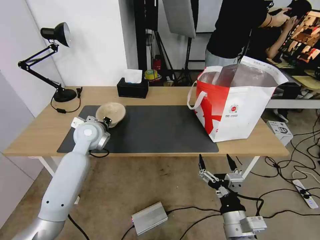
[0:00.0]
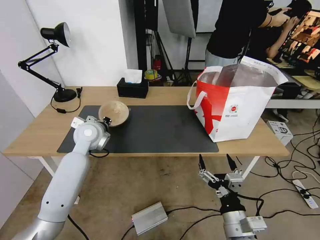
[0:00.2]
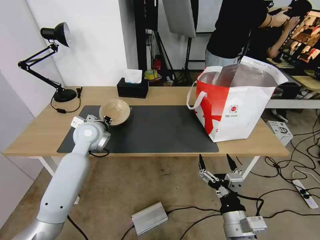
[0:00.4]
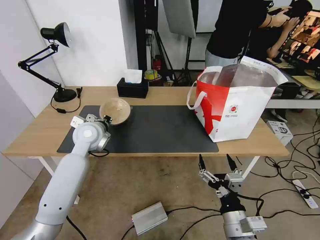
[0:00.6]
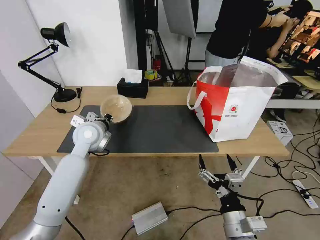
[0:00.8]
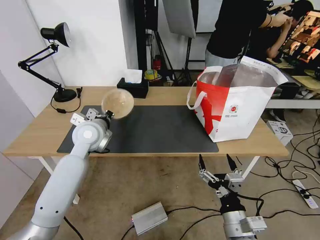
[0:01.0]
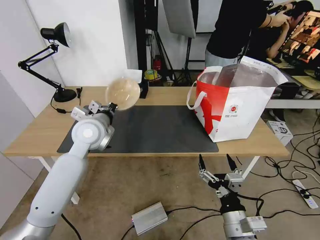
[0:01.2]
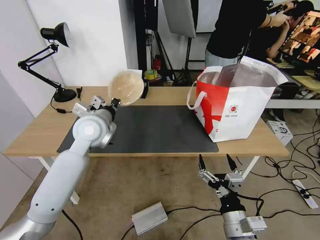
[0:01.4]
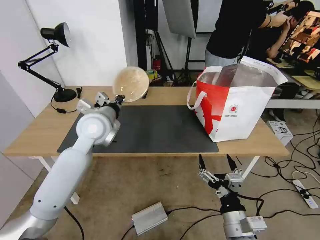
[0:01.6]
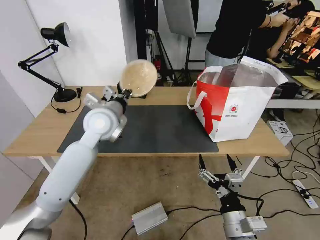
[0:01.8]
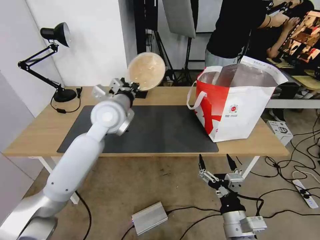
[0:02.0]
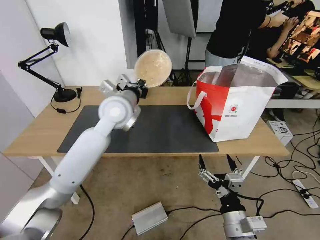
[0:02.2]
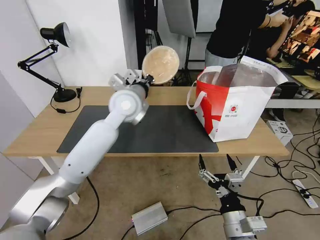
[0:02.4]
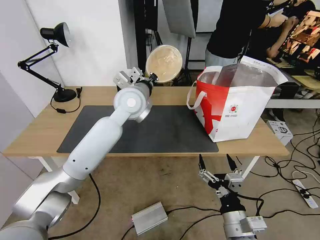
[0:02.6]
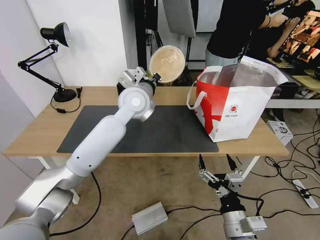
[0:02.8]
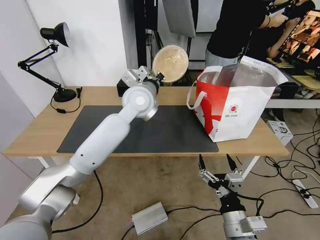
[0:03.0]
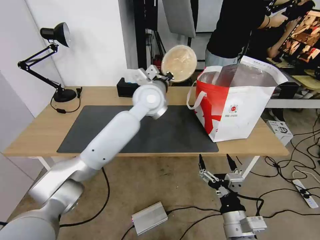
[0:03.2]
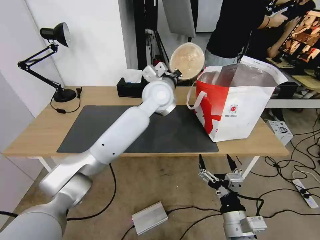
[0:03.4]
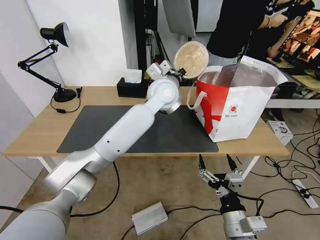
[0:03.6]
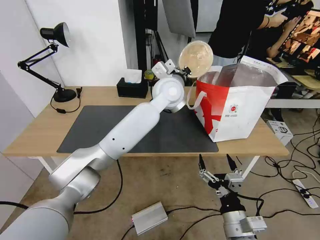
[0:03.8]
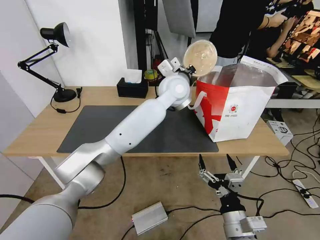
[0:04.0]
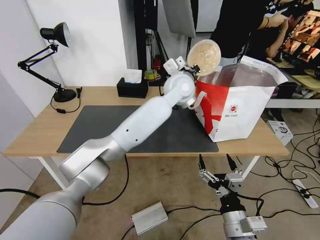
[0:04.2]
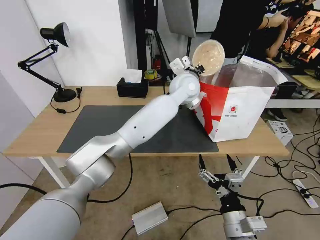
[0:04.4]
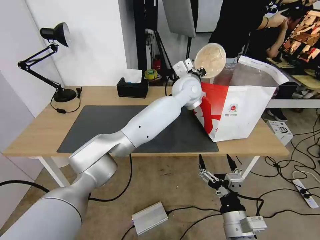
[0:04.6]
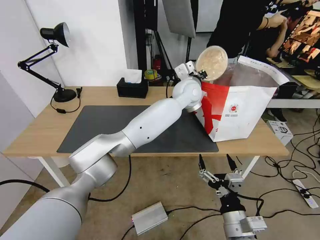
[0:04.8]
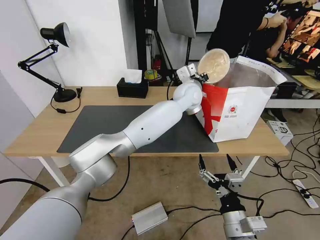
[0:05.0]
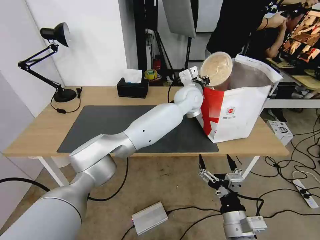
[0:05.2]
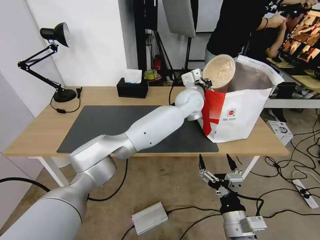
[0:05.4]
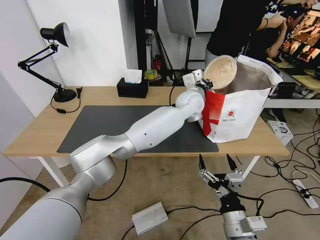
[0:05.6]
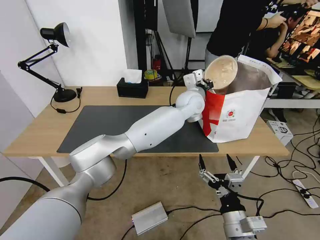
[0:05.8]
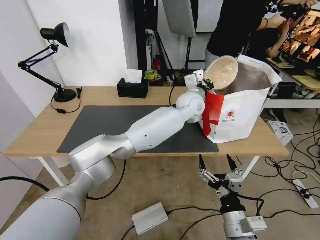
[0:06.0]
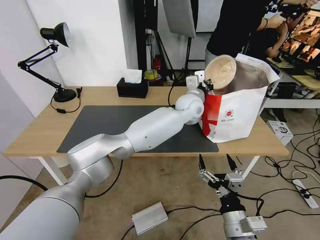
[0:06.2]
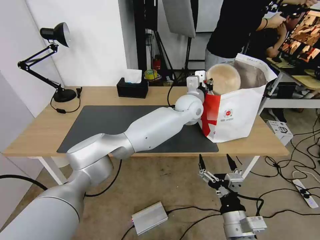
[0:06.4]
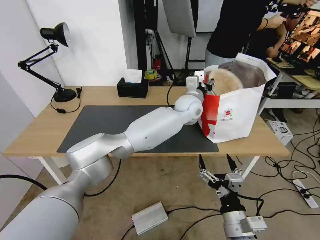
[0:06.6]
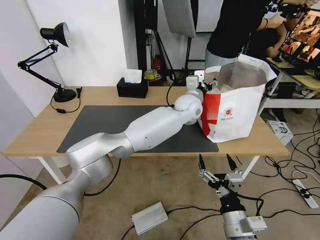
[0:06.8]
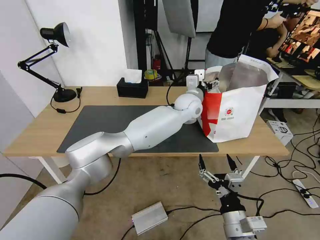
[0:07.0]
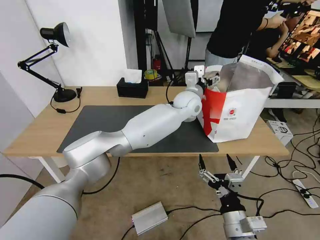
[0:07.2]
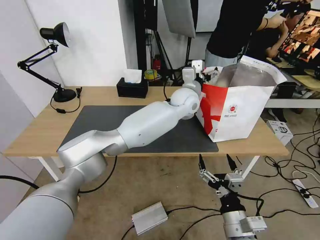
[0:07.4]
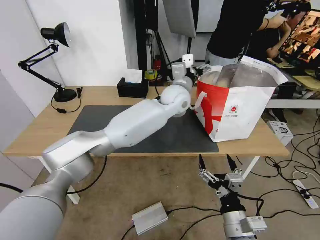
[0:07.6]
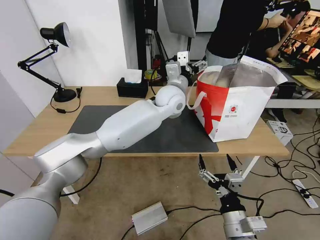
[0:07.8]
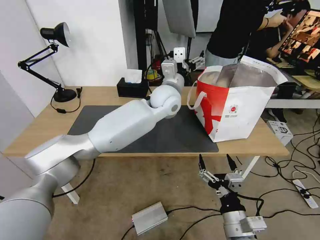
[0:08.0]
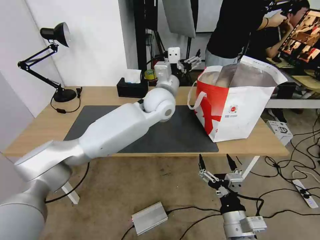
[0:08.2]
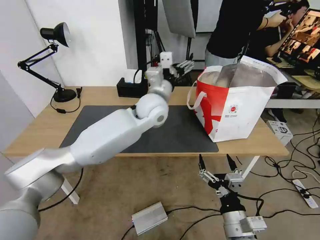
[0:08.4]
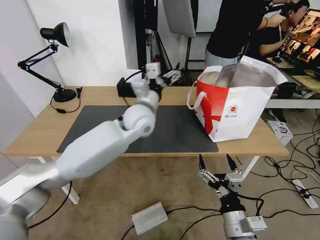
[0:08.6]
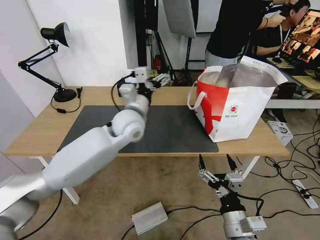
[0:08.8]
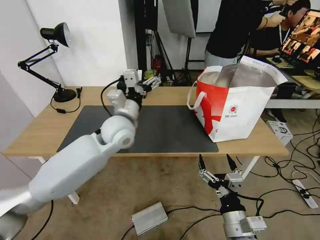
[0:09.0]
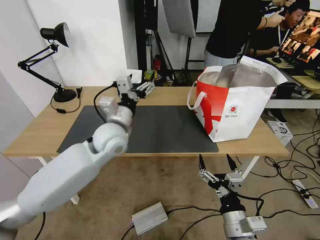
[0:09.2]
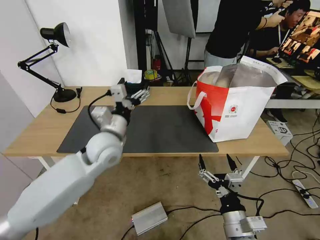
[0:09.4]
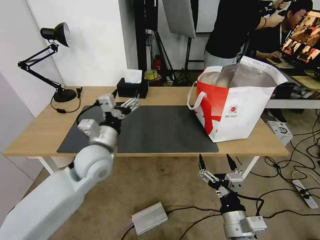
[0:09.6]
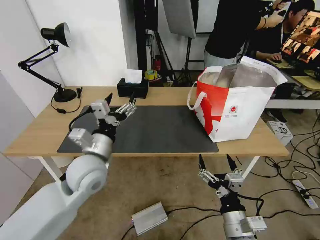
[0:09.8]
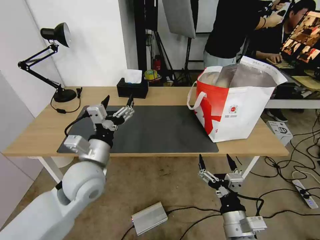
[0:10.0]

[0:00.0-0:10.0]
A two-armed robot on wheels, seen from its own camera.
Task of the whole recording: Pick up the trash from the table and place it into the takeout bag.
0.0 to 1.4 s: The left gripper goes about 5 cm upward.
1.4 to 2.8 s: The left gripper heads to the right, forward and upward, covering about 15 cm.
2.8 to 4.2 s: The left gripper travels to the right by about 15 cm.
4.2 to 5.8 s: The left gripper heads downward, covering roughly 5 cm.
5.8 to 7.2 s: The left gripper opens up.
7.2 to 8.6 s: The left gripper is displaced to the left and backward by about 20 cm.
8.6 to 10.0 s: The left gripper travels backward and to the left by approximately 20 cm.

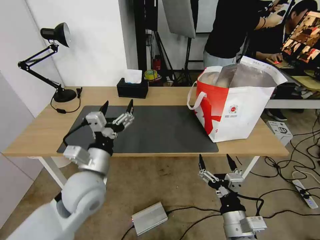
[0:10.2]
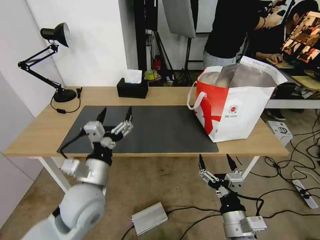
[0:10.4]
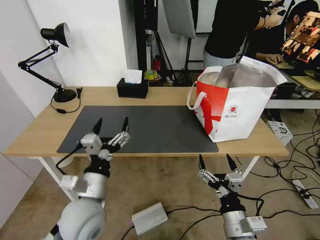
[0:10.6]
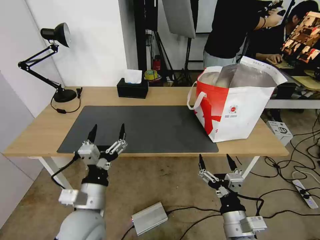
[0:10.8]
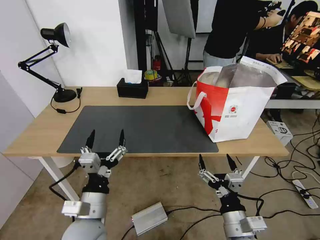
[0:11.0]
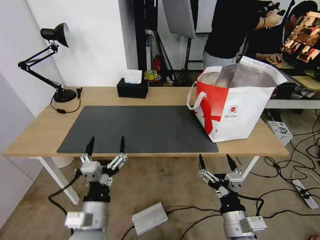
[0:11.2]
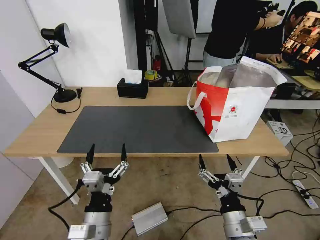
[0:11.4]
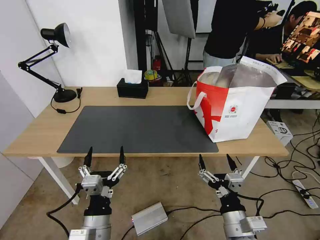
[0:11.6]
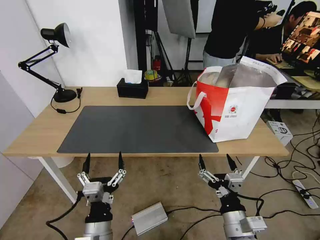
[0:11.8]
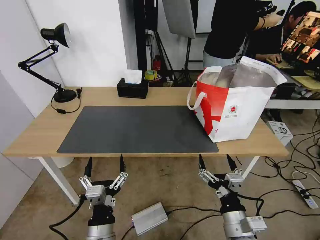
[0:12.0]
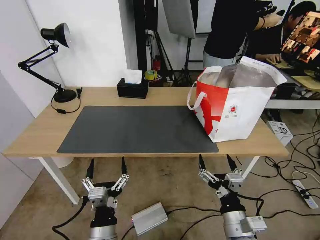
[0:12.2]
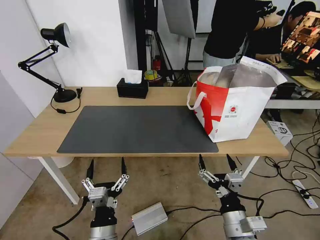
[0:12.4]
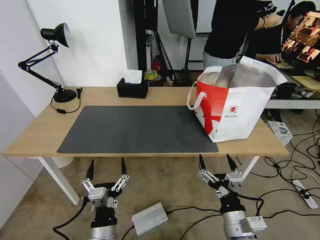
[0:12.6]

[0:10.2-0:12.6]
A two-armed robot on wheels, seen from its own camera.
Task of the whole recording: Pick up the trash from the table and place it into the takeout bag.
10.2 to 11.4 s: The left gripper moves backward and downward, some 15 cm.
11.4 to 12.6 s: The left gripper moves roughly 5 cm.

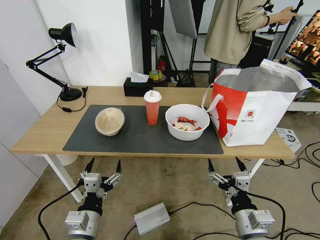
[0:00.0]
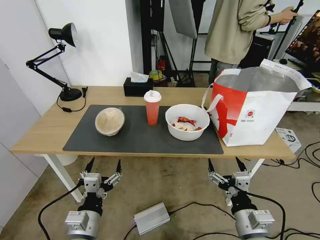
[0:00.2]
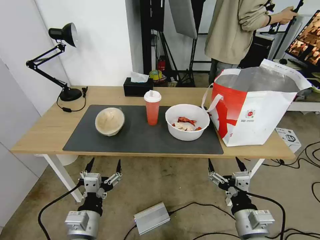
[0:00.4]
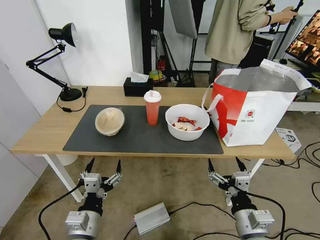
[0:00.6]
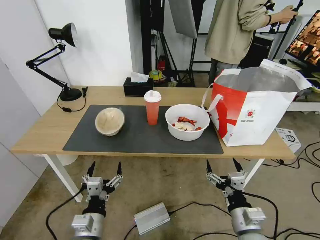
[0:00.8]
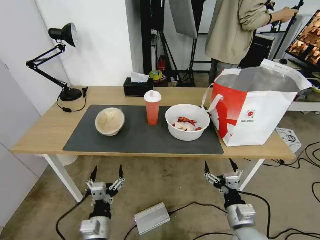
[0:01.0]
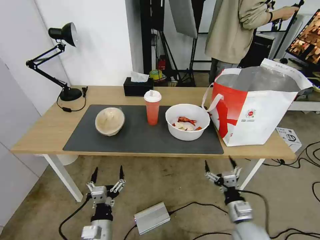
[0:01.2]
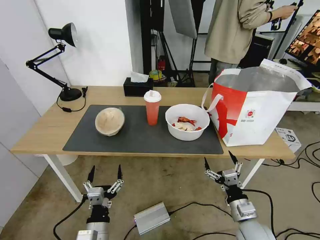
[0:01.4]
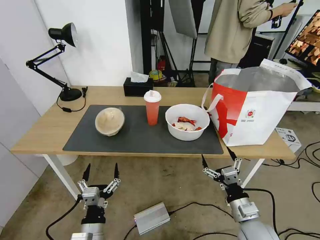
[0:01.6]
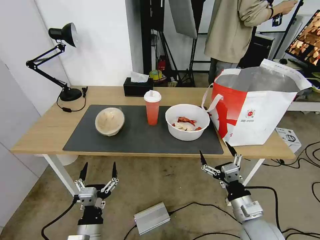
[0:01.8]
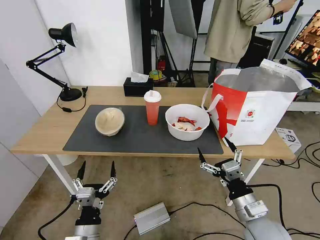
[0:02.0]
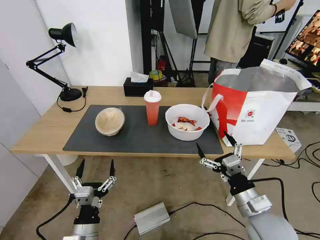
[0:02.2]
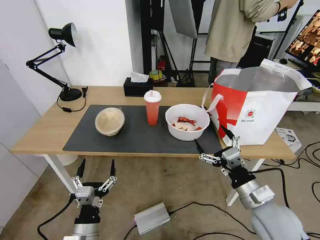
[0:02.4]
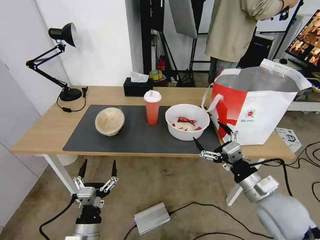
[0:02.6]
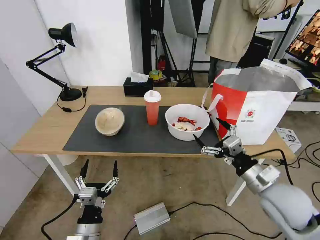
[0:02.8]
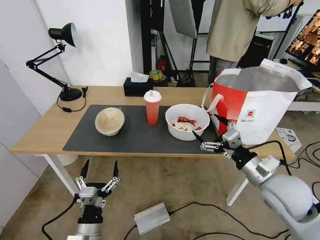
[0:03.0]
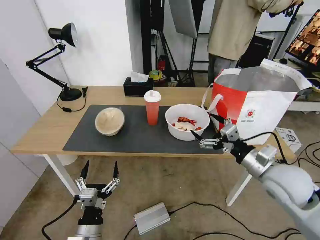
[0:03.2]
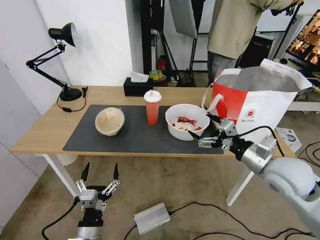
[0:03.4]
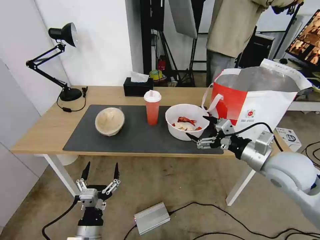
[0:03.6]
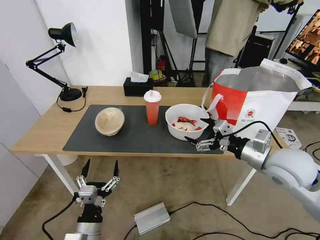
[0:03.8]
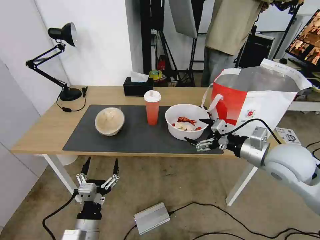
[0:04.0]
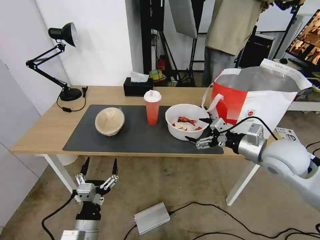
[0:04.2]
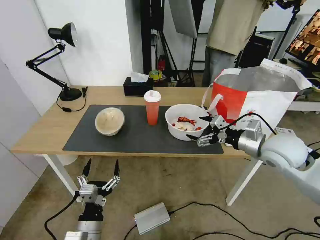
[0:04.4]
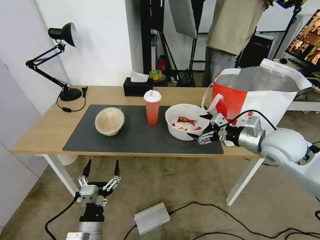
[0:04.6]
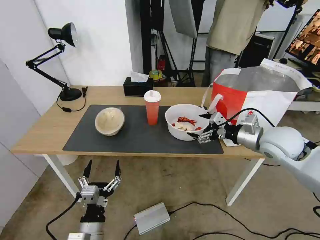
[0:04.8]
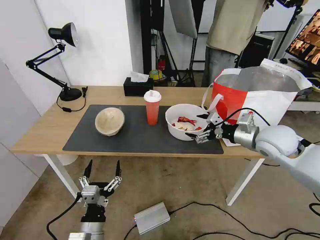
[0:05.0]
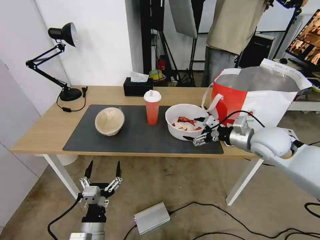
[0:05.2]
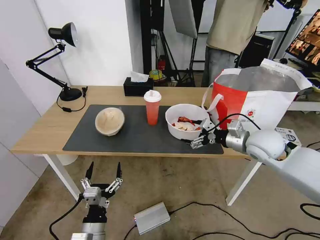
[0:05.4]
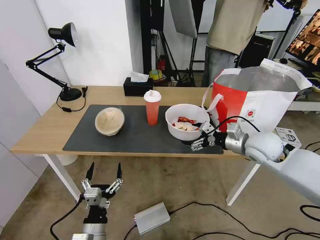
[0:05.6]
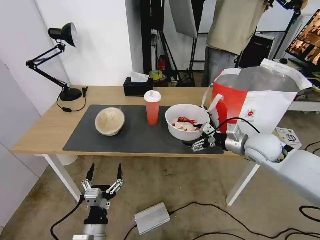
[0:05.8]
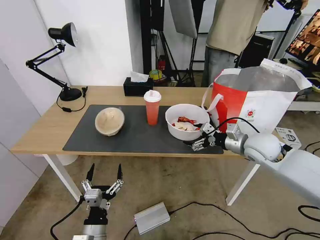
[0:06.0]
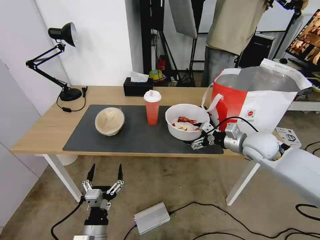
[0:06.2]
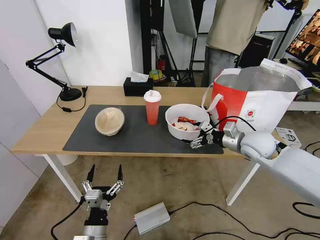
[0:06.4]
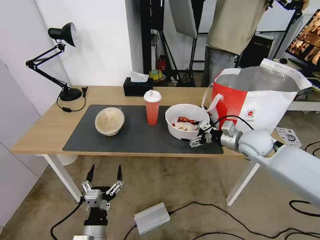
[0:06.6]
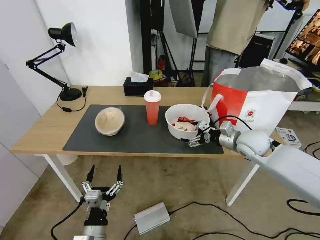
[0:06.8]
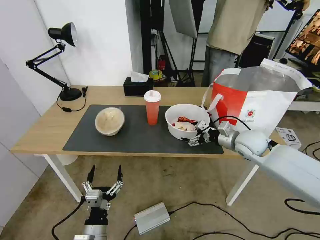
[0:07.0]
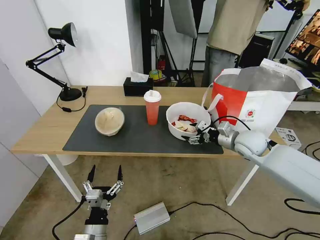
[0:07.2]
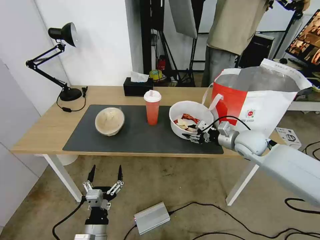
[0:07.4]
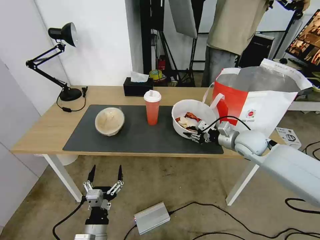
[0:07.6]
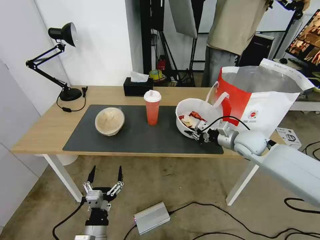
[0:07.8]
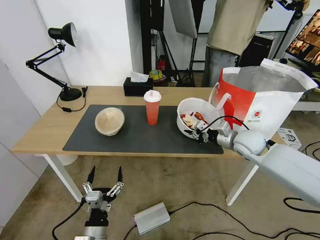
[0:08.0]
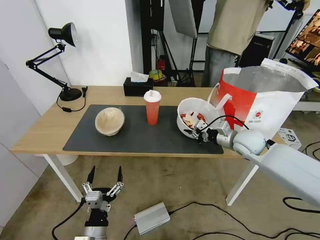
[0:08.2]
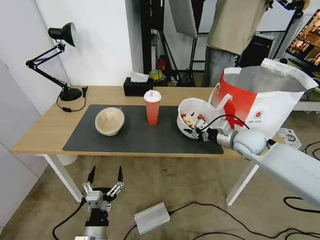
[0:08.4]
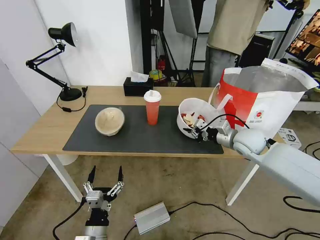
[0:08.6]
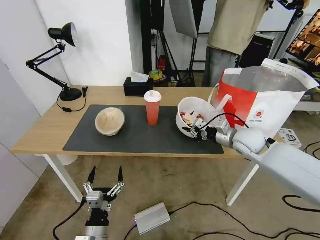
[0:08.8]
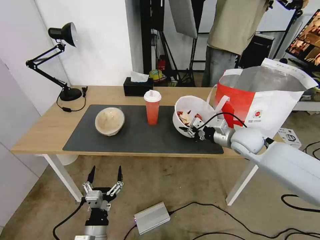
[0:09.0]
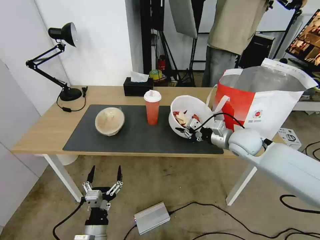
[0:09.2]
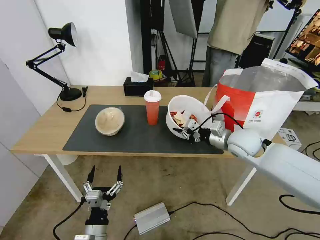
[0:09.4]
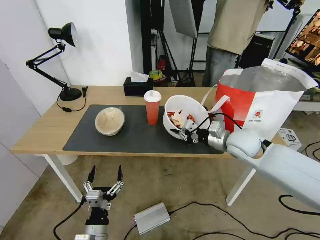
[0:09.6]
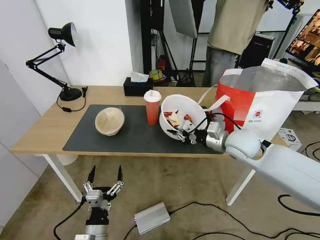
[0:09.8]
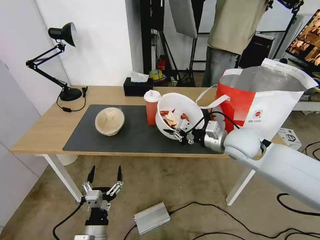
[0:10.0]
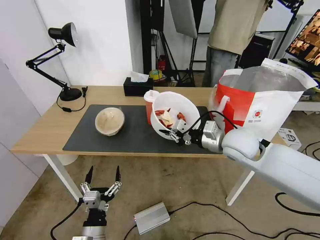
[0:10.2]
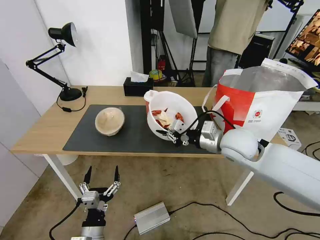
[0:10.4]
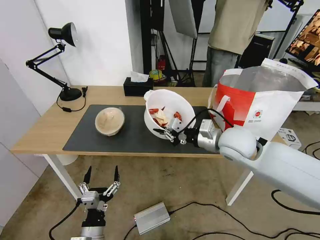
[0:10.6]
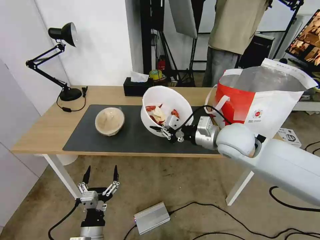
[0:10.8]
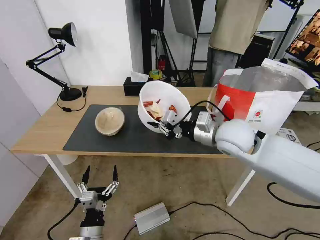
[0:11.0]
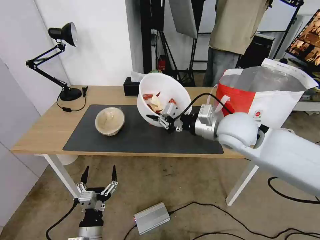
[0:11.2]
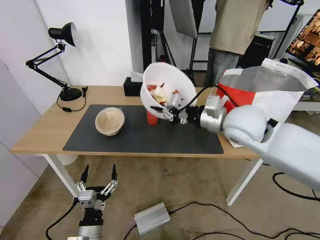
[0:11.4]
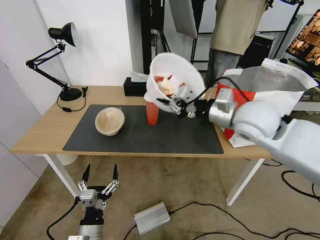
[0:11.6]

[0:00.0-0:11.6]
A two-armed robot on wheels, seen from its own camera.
Task of the whole recording: Pick up the trash from the table and place it into the takeout bag.
1.4 to 2.8 s: The right gripper moves upward, some 15 cm.
2.8 to 4.4 s: The right gripper is displaced forward and upward by roughly 15 cm.
4.4 to 5.8 s: The right gripper changes place by about 5 cm.
5.8 to 7.2 s: The right gripper moves approximately 5 cm.
7.2 to 8.8 s: The right gripper closes up.
8.8 to 10.2 s: The right gripper heads to the left and backward, covering roughly 10 cm.
10.2 to 11.6 s: The right gripper is displaced upward by approximately 10 cm.
